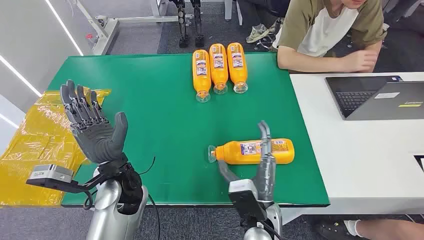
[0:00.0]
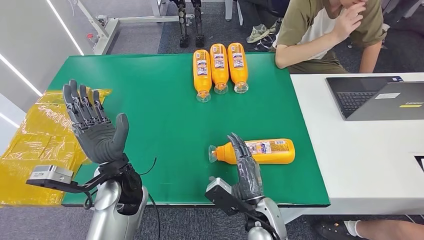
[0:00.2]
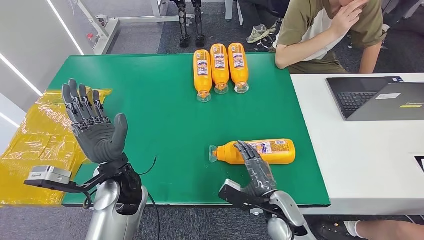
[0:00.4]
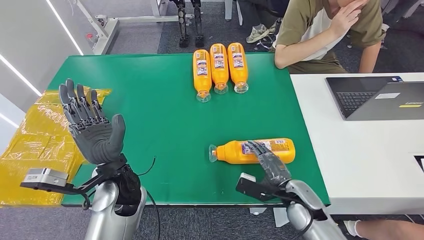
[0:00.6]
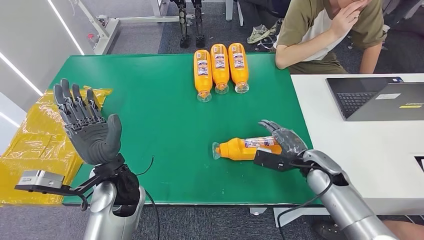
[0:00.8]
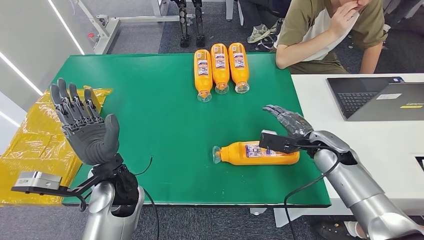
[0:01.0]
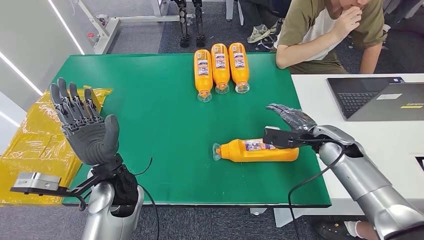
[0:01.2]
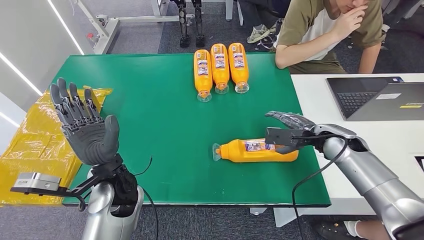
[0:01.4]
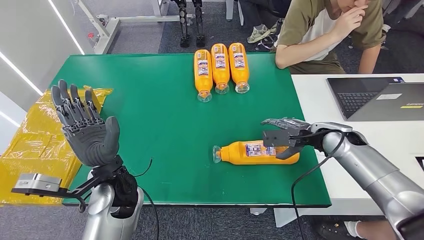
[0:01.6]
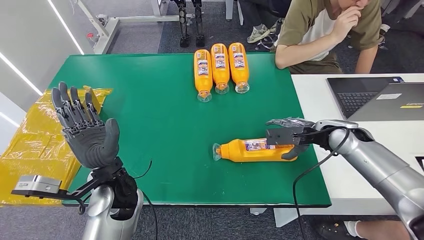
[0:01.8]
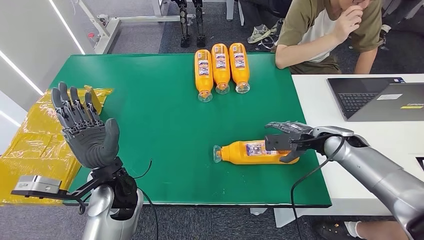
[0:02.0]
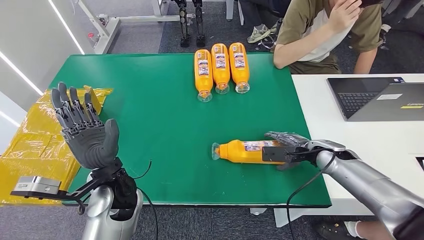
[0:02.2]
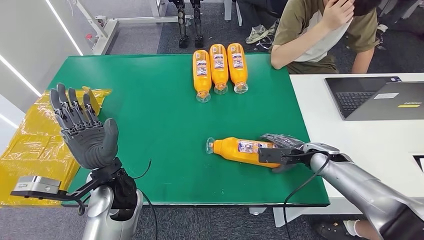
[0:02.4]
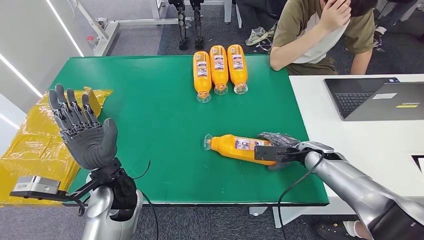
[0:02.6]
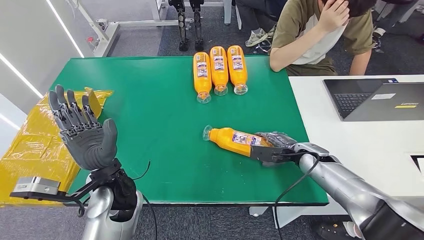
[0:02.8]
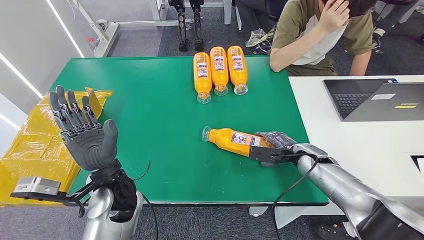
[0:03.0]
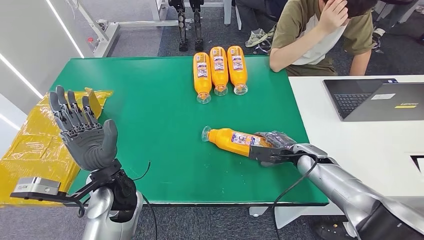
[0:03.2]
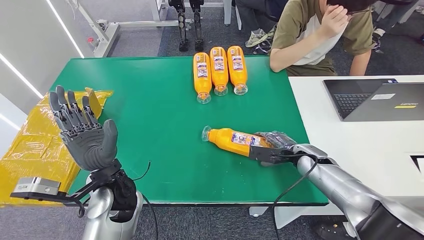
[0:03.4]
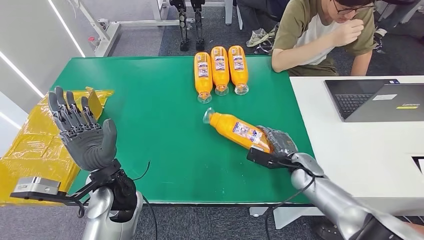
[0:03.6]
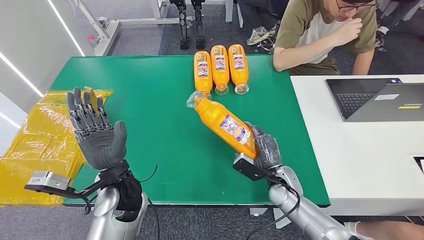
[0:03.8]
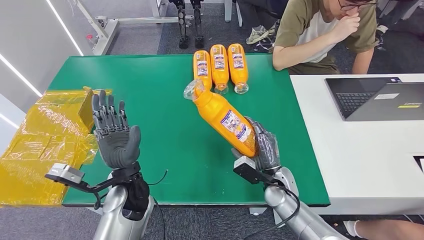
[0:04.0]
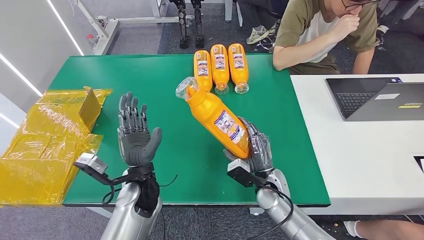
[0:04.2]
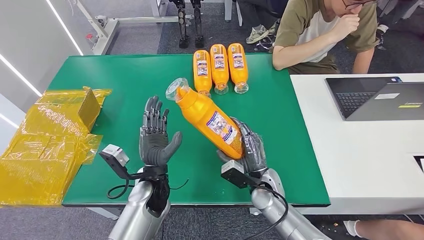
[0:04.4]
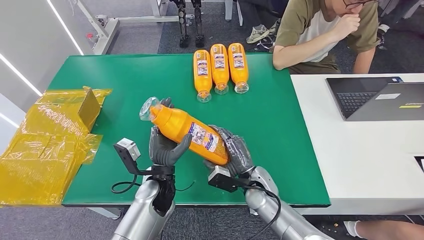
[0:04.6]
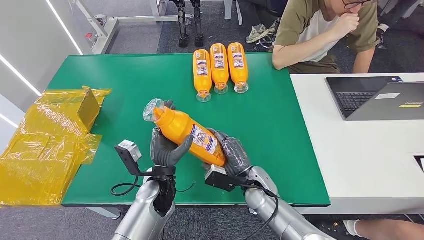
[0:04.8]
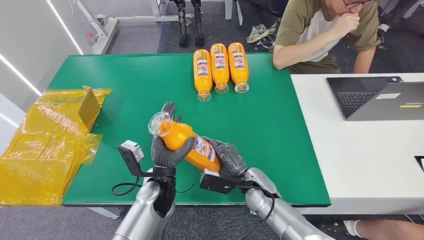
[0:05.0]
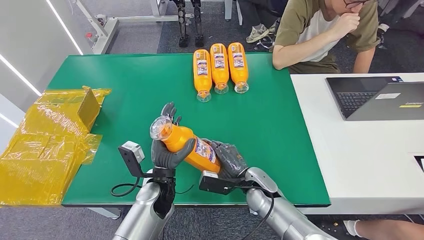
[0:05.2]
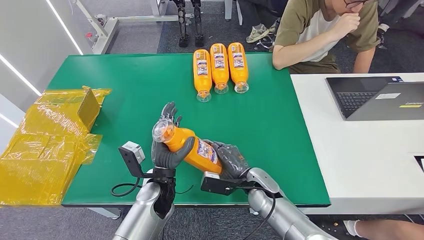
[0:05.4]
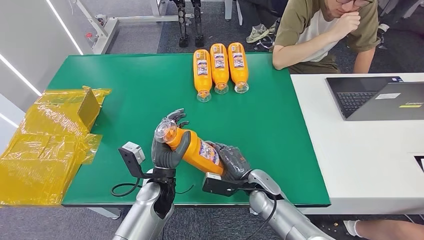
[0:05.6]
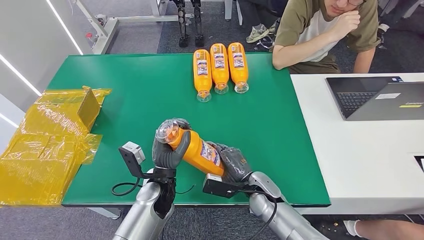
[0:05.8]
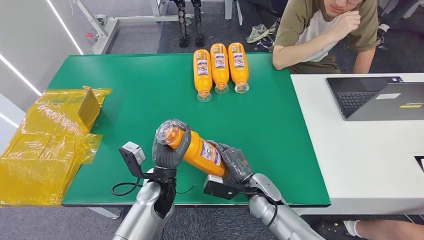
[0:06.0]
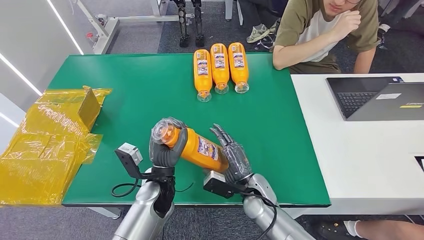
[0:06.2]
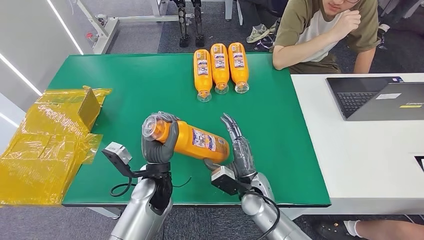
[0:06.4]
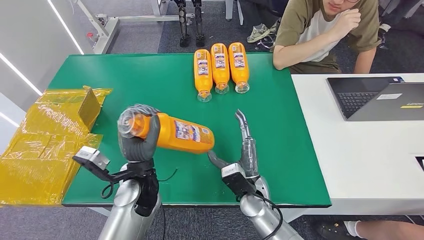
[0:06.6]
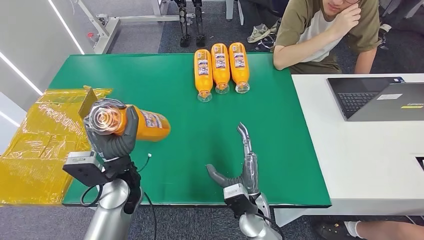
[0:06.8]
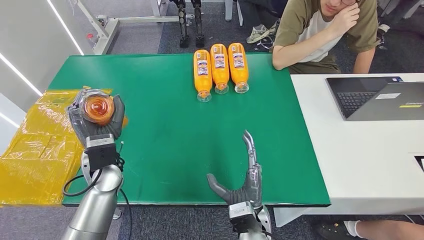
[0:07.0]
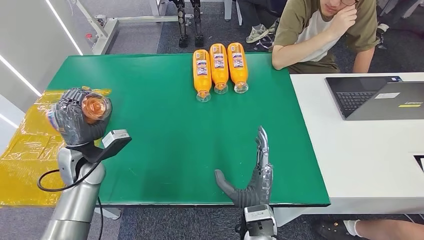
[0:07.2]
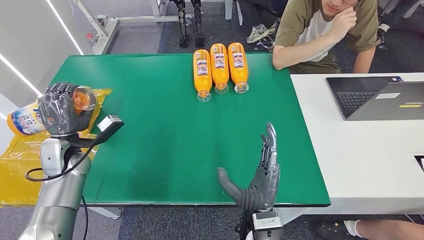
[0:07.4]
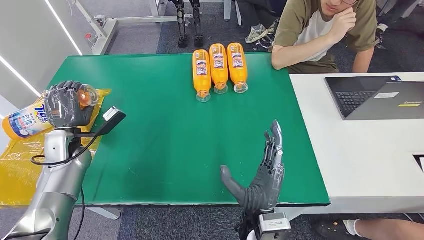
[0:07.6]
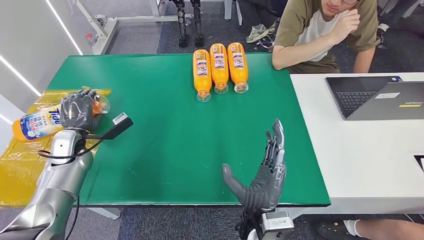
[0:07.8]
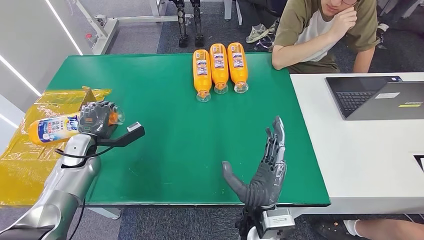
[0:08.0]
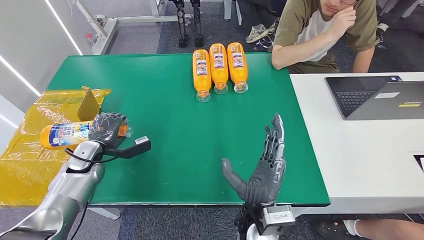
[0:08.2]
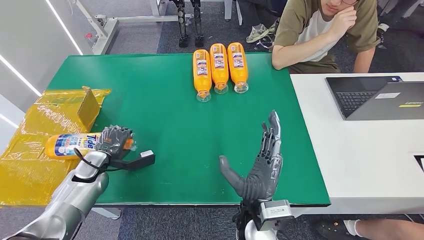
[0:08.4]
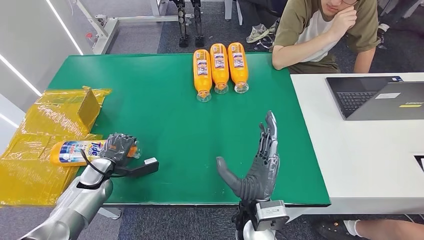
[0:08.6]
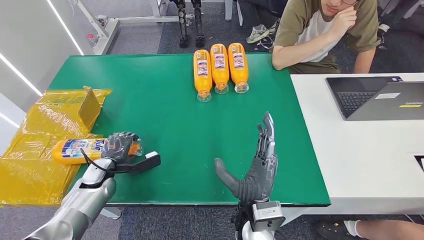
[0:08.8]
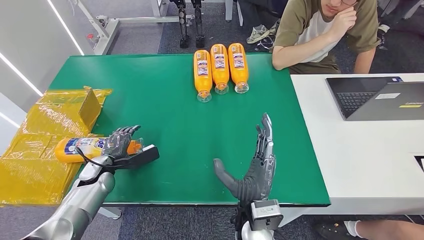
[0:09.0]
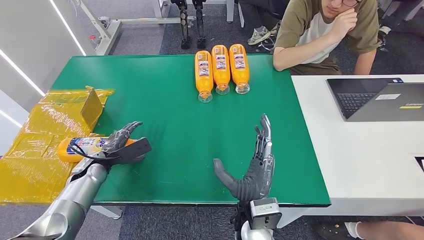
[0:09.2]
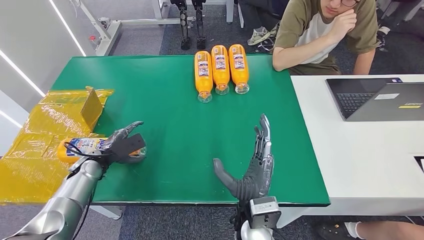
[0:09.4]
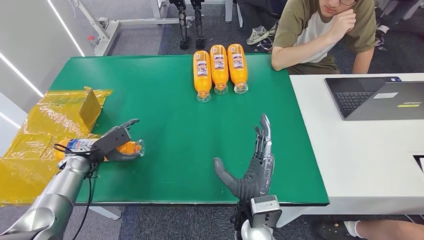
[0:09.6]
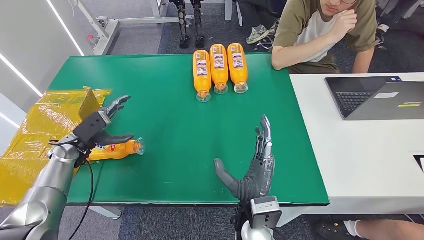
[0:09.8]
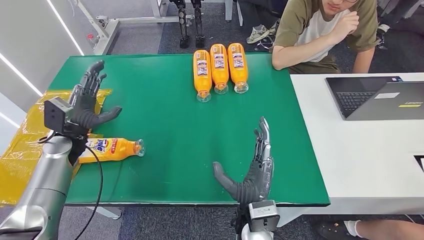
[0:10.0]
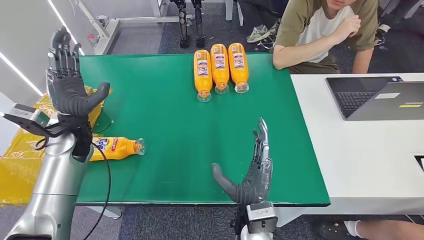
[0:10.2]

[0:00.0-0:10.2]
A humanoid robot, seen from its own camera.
Step, 0:00.0 to 0:04.0: Pick up the bottle from the table.
Step, 0:04.4 to 0:10.0: Turn the bottle to the front side.
0:05.8 to 0:07.2: The left hand heads to the left, forward and upward, covering some 20 cm. Meanwhile the right hand heads backward and to the left, covering about 10 cm.
0:07.2 to 0:08.8: The right hand shifts about 5 cm upward. Meanwhile the left hand shifts some 15 cm downward and to the left.
0:08.8 to 0:10.2: The left hand goes roughly 20 cm upward and forward.

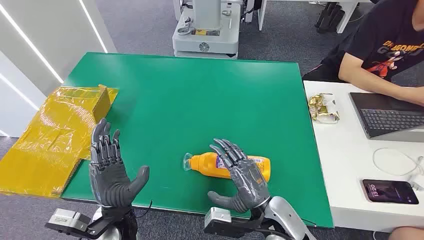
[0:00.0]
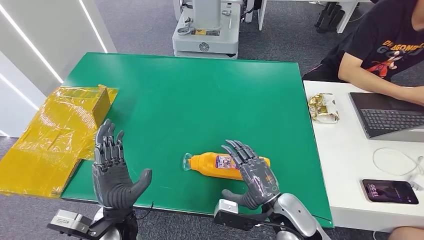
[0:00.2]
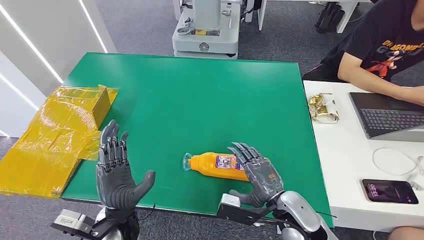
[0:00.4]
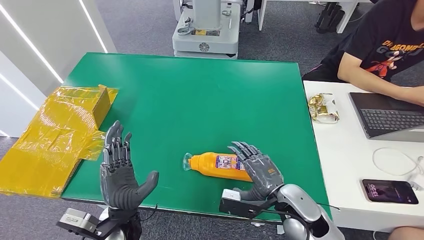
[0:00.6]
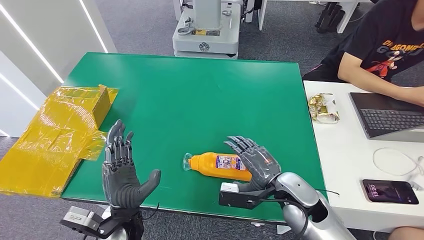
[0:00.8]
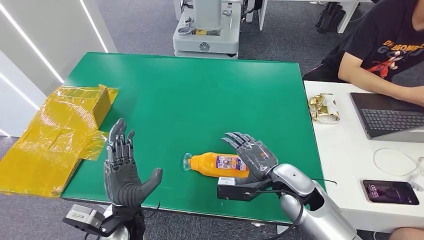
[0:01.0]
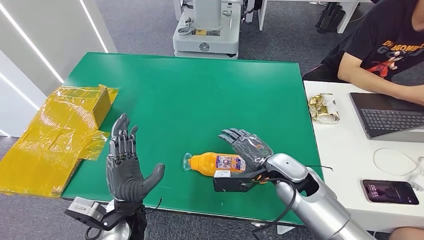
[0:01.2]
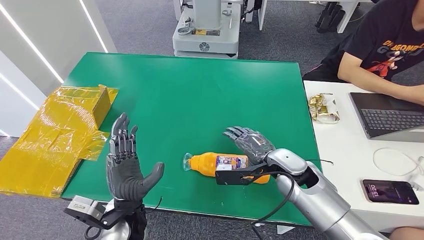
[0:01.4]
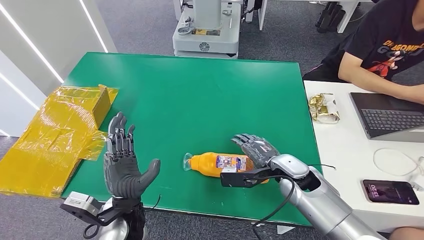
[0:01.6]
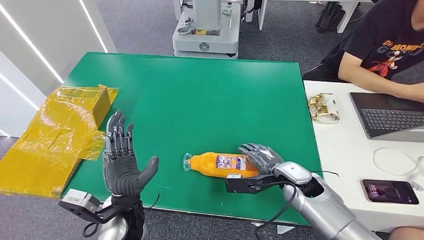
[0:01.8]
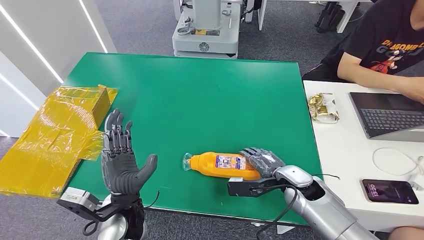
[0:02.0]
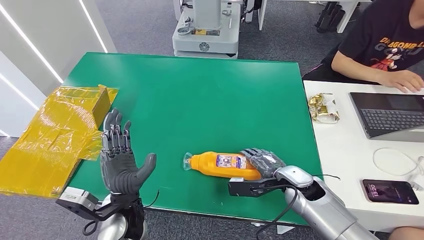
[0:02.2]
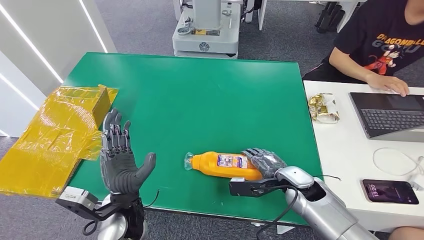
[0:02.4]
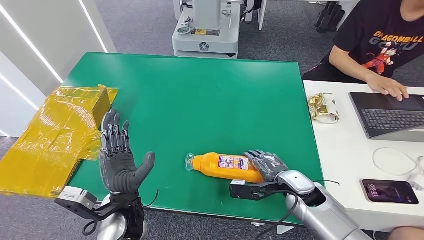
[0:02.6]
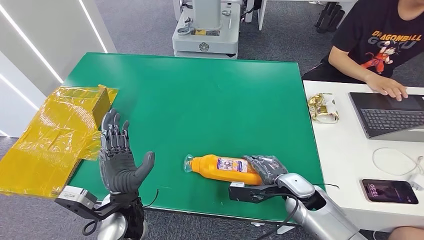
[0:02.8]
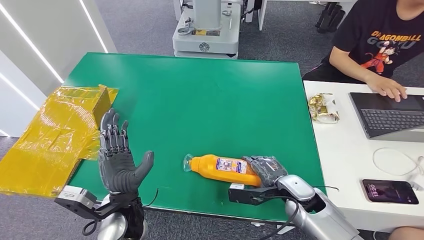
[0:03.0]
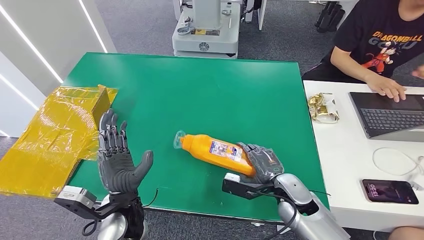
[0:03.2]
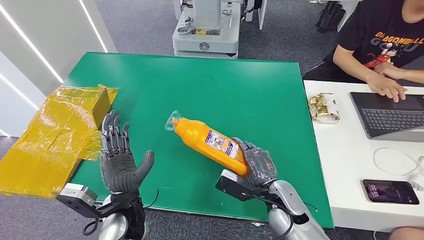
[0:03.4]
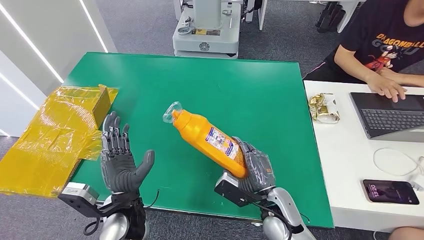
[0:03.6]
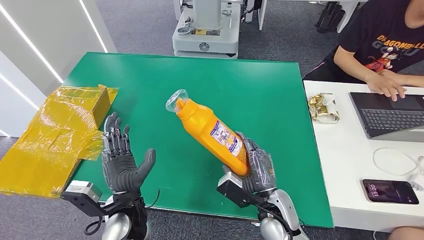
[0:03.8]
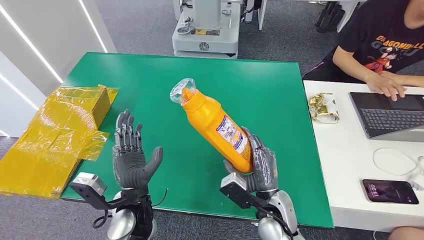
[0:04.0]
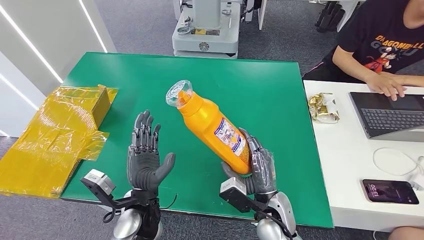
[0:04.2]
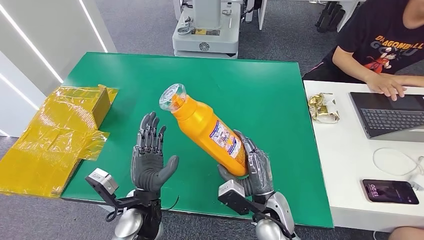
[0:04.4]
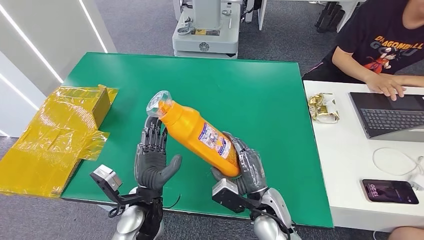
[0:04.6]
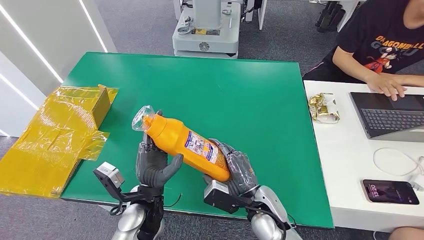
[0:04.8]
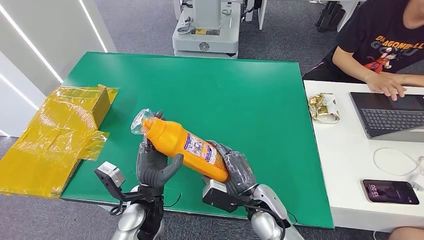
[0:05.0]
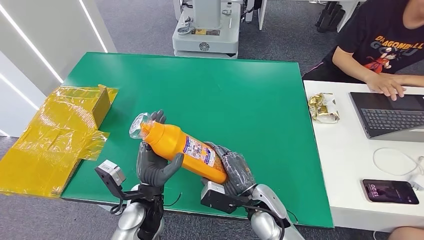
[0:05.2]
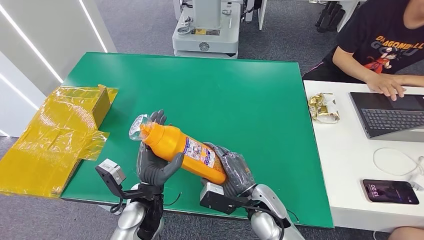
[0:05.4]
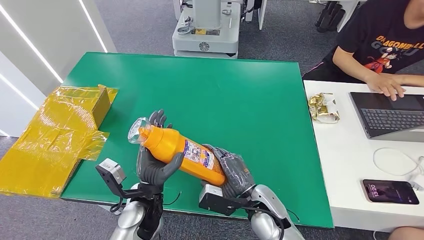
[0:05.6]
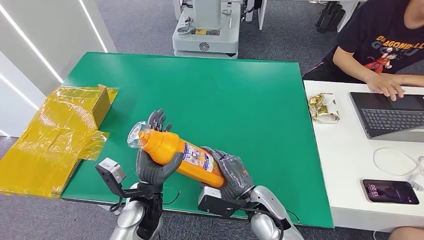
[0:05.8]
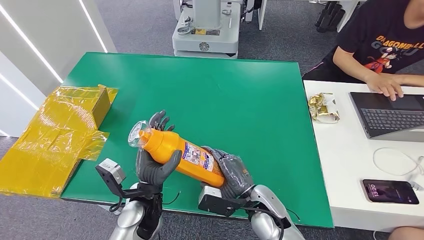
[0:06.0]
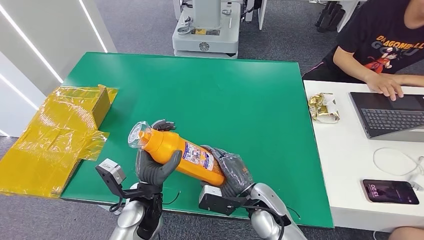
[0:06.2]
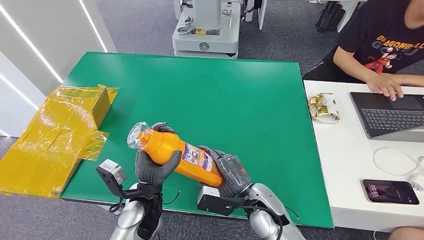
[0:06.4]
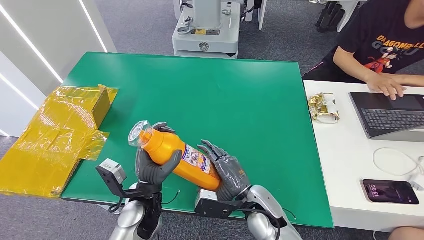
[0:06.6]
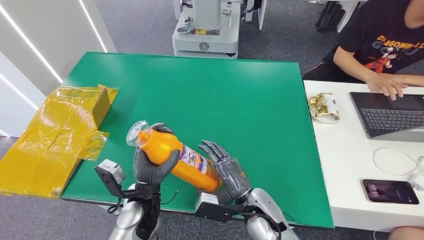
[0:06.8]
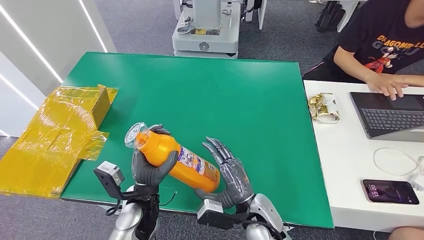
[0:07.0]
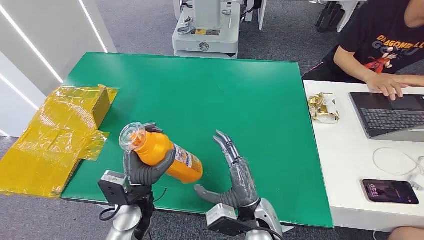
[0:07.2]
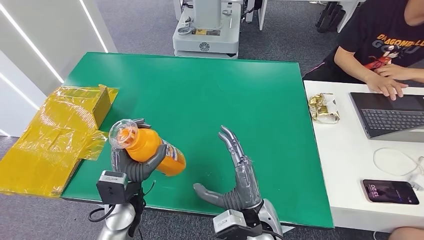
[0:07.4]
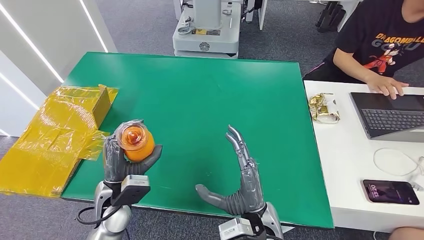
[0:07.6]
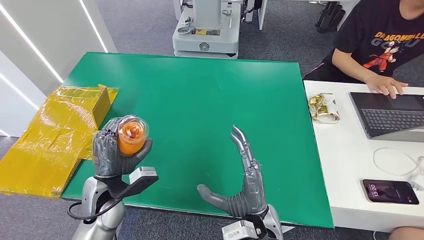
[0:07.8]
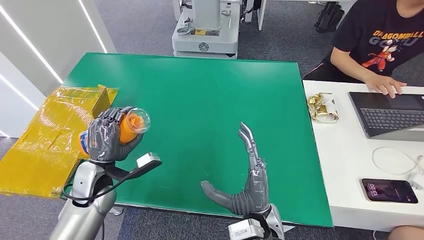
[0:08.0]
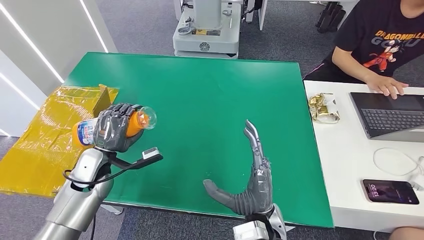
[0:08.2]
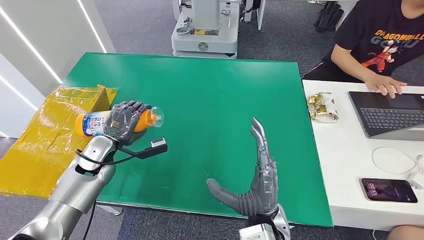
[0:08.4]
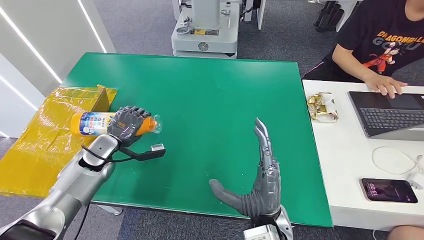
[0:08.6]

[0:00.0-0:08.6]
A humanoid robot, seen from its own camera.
Step, 0:00.0 to 0:04.0: Pick up the bottle from the table.
0:01.4 to 0:02.8: The right hand goes about 5 cm downward.
0:02.8 to 0:04.4: The right hand goes approximately 10 cm to the left and backward.
